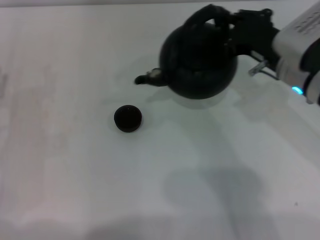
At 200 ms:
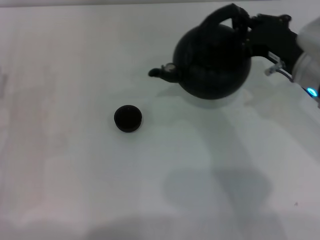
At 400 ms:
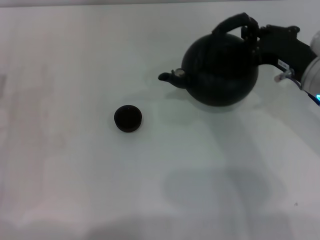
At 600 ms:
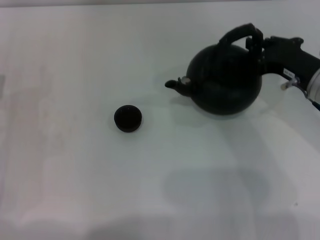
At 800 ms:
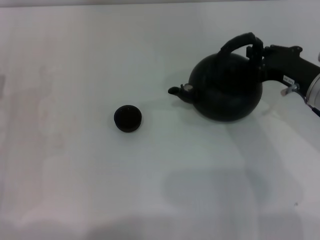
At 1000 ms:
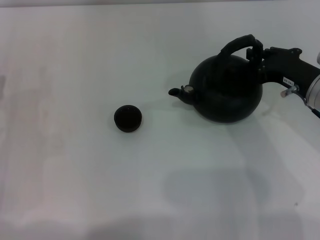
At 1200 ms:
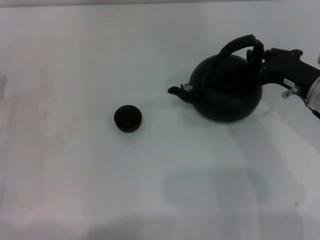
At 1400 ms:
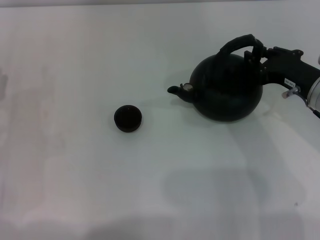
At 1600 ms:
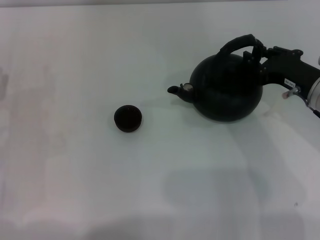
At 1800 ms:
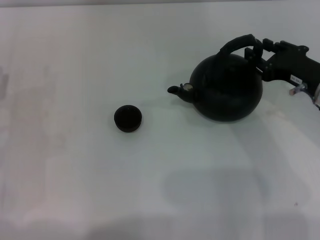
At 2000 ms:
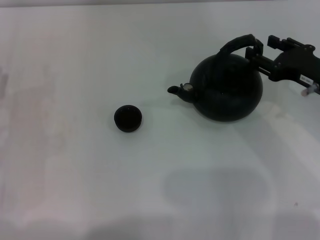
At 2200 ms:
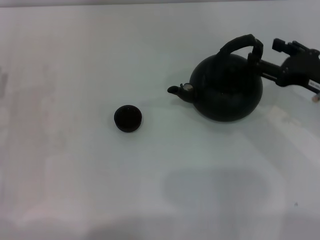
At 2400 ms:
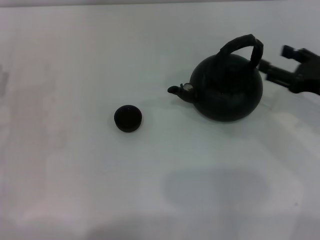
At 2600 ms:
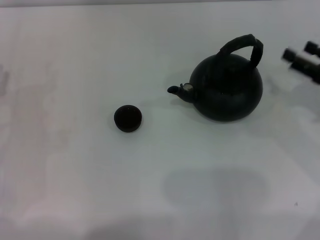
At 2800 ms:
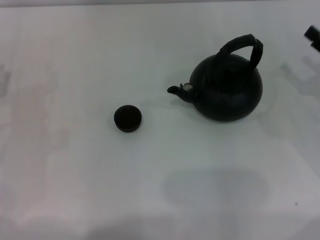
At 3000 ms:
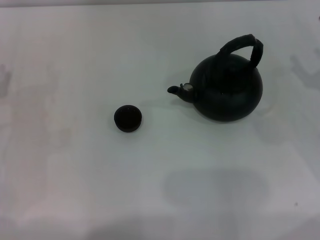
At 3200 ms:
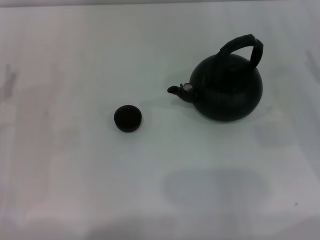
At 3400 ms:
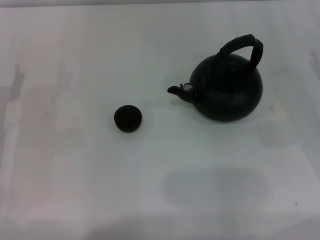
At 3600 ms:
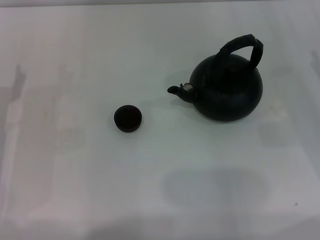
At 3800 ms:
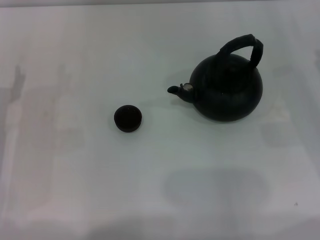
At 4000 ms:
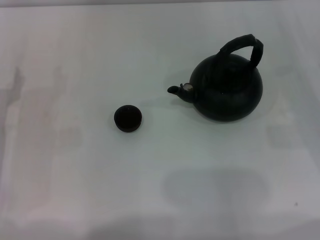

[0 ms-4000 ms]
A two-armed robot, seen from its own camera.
Task of the whole recording: Grasp the handle of the teapot with one hand and pour tea into the teacup.
Step, 0 ms to 2000 ms: Put down the teapot with the right gripper.
0 ms to 1400 ms: The right gripper shifts roughly 10 cm to the right and downward.
1400 ms to 2600 ms: The right gripper moves to the right, roughly 10 cm, and opens its fingers.
